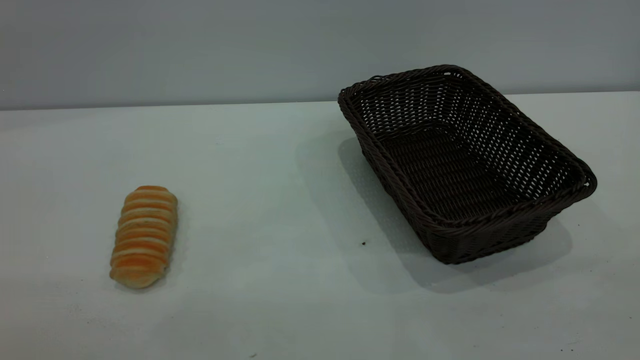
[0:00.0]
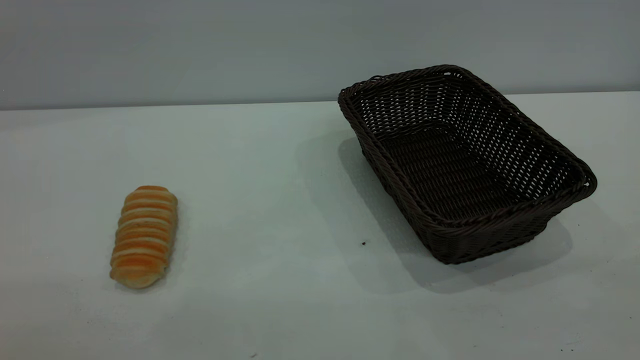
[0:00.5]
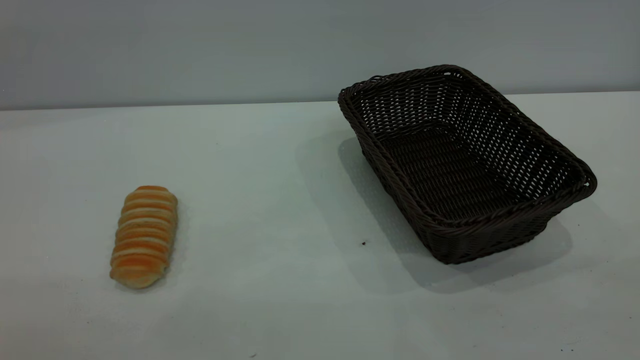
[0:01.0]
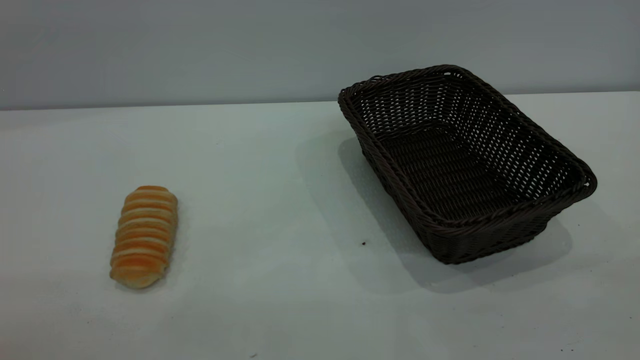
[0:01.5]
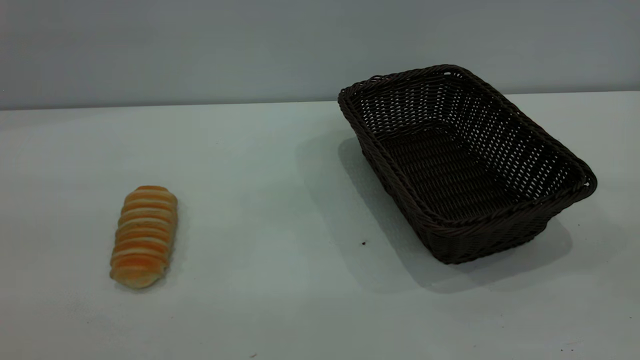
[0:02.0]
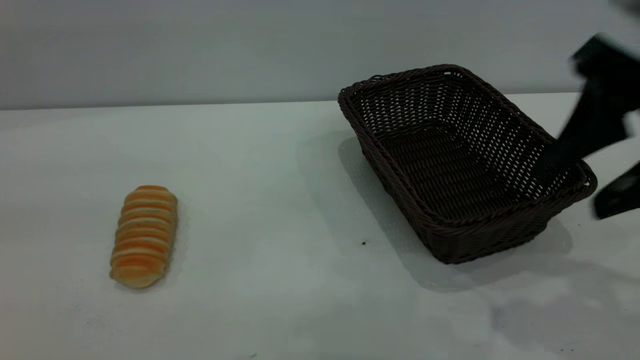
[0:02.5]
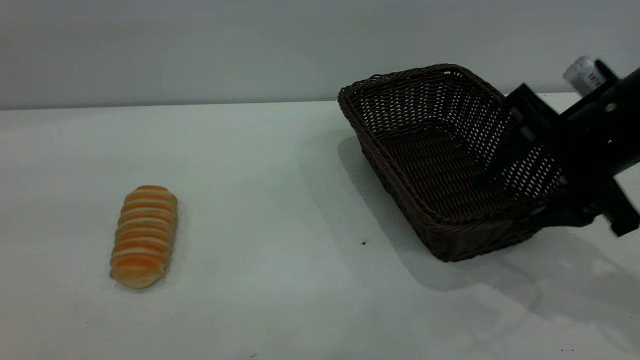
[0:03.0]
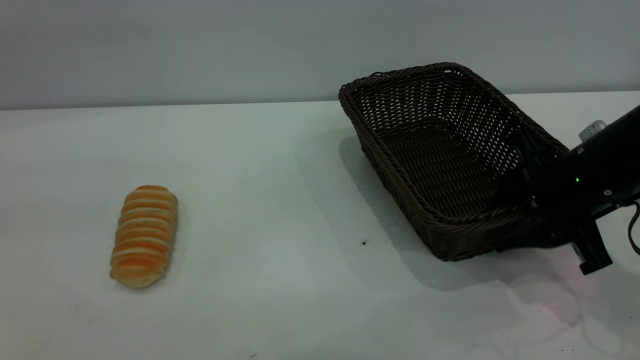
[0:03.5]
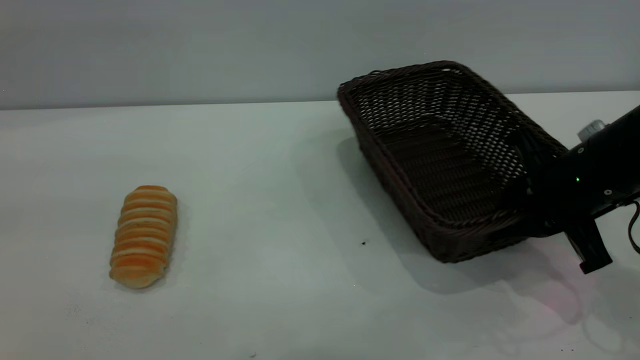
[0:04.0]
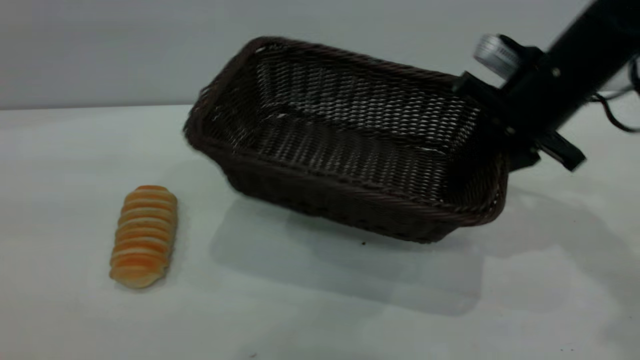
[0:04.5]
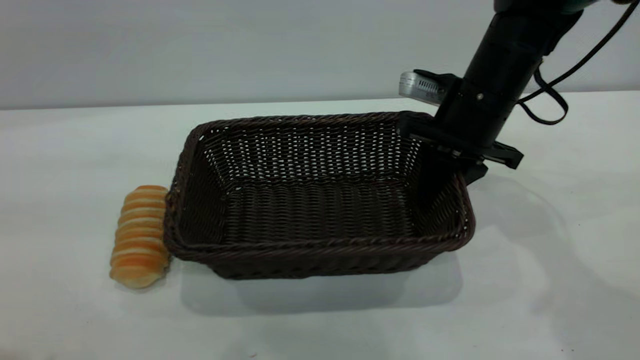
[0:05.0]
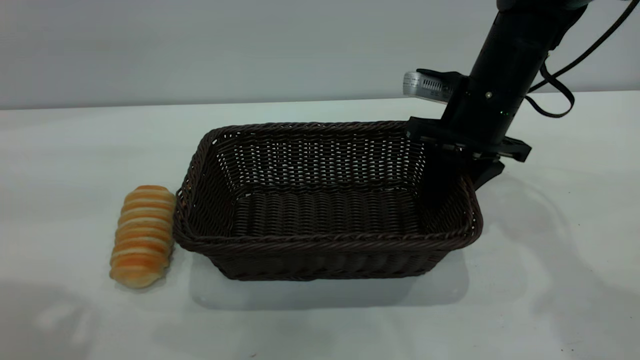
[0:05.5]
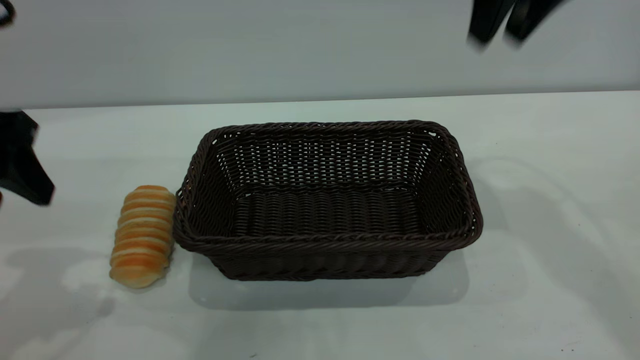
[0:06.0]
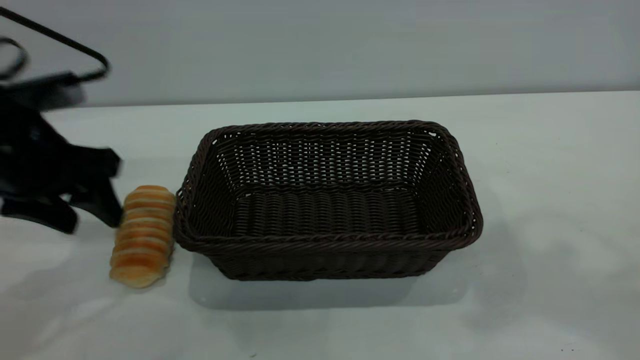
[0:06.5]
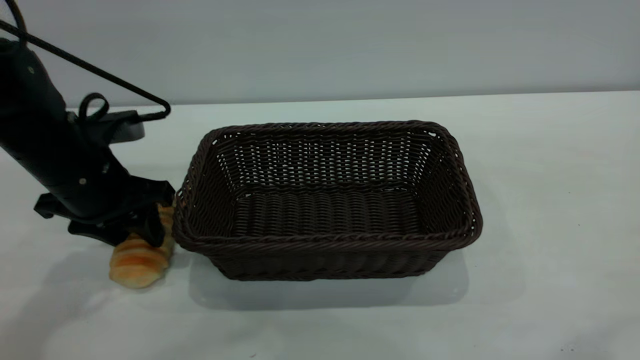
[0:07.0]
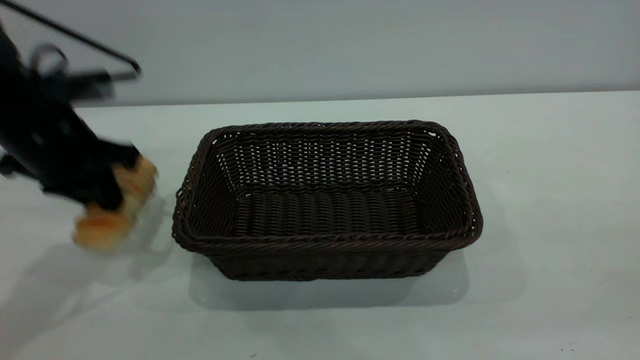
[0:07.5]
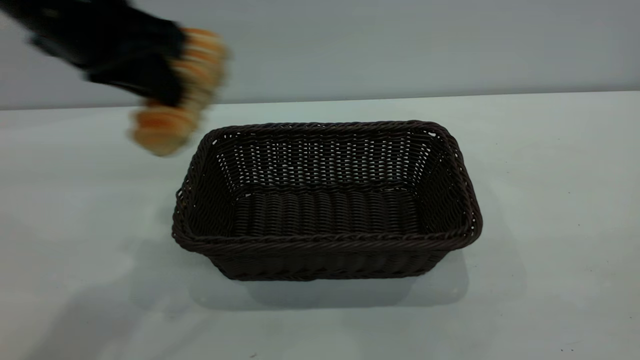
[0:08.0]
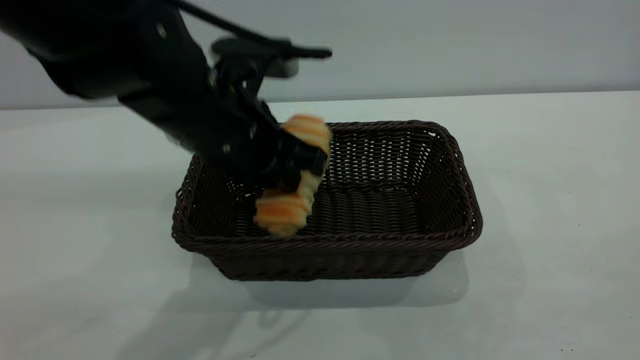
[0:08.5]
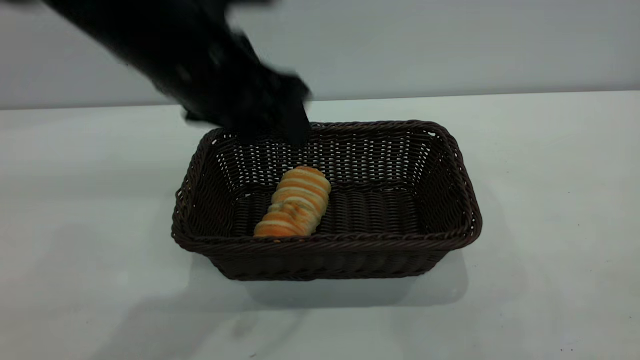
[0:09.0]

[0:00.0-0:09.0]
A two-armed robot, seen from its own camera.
Task of the whole recording: One hand grasps the black basket and places it in the middle of the table, while the other hand picks up the long bread and puts it into the black basket.
Step, 0:00.0 to 0:05.5: Move the basket to the center of view.
Step, 0:08.0 to 0:09.0: place the bread into the basket.
0:02.0 to 0:04.5: The right gripper shifts about 35 cm forward and downward, and closes up.
0:04.5 to 0:07.0: The left gripper heads downward and forward, covering approximately 35 cm; the right gripper shifts some 35 cm upward and backward, and opens up.
0:07.0 to 0:09.0: The right gripper is displaced backward and downward by about 20 cm, while the left gripper travels upward and to the right by approximately 20 cm, and opens its fingers.
